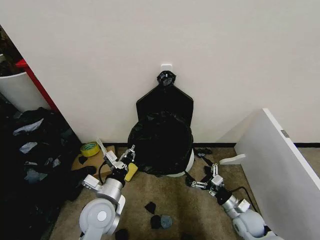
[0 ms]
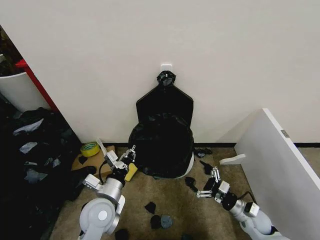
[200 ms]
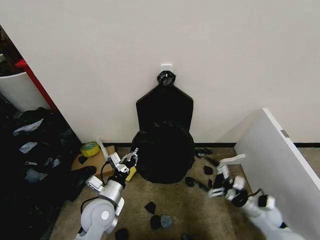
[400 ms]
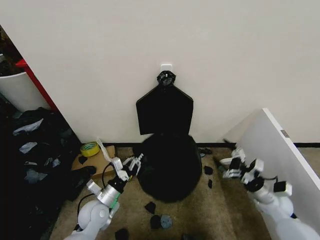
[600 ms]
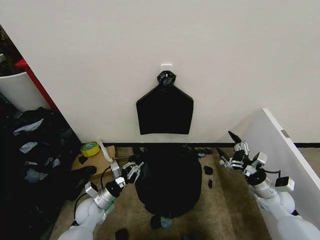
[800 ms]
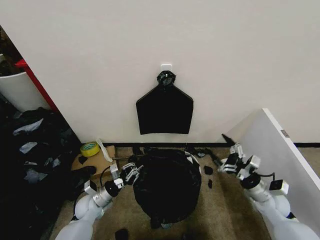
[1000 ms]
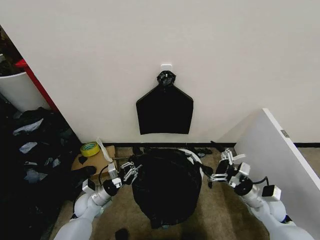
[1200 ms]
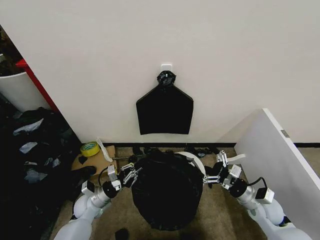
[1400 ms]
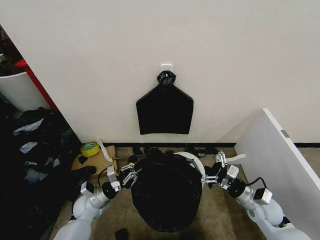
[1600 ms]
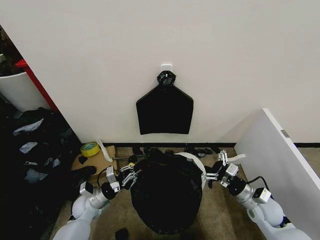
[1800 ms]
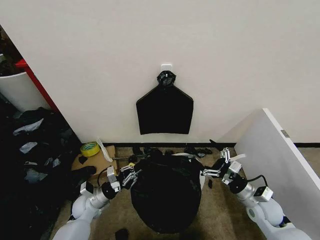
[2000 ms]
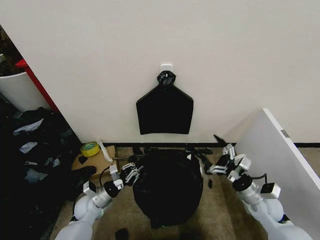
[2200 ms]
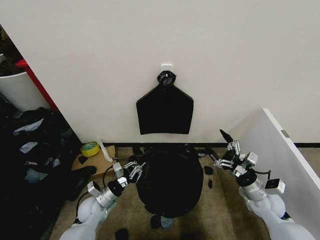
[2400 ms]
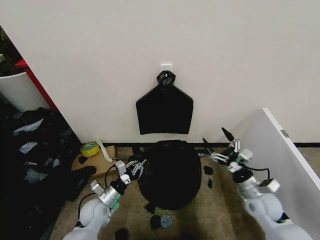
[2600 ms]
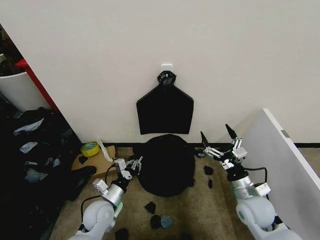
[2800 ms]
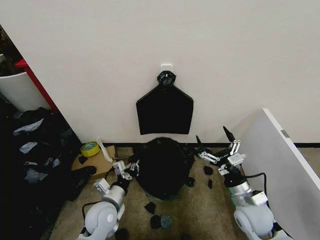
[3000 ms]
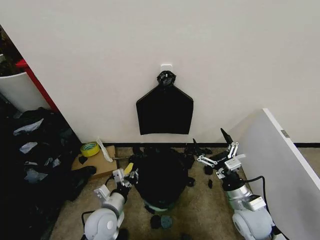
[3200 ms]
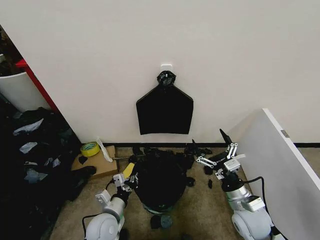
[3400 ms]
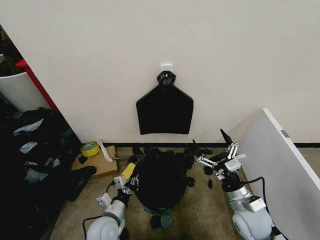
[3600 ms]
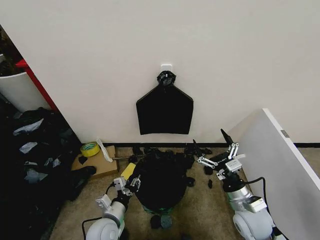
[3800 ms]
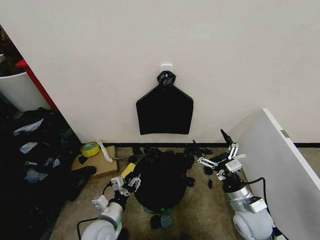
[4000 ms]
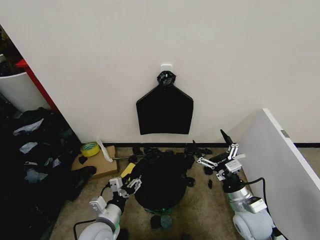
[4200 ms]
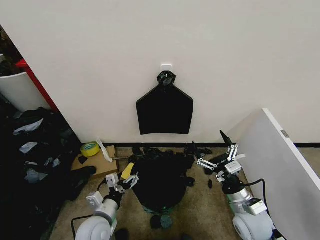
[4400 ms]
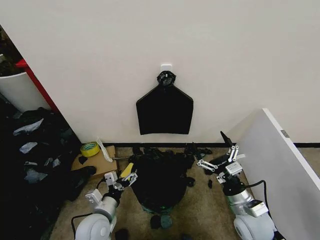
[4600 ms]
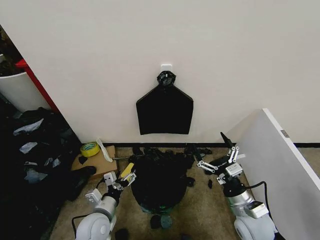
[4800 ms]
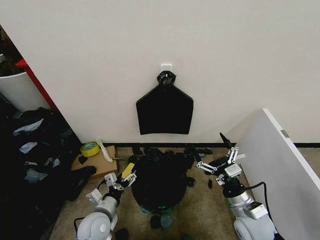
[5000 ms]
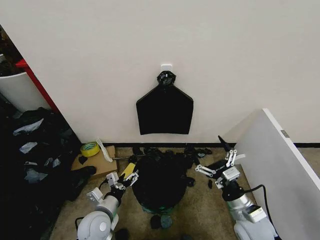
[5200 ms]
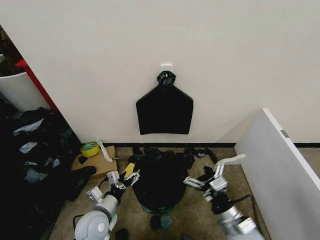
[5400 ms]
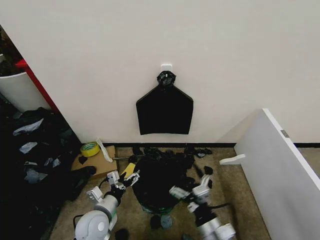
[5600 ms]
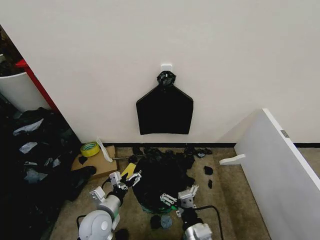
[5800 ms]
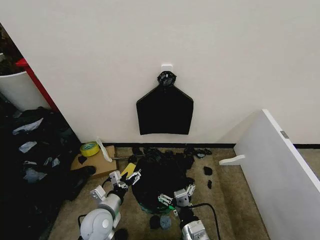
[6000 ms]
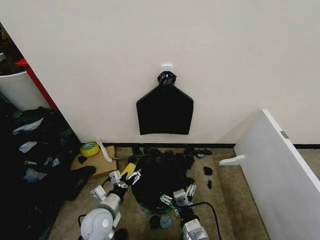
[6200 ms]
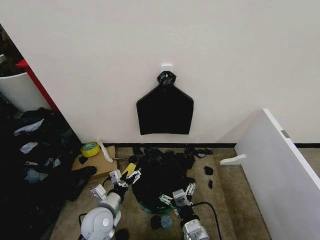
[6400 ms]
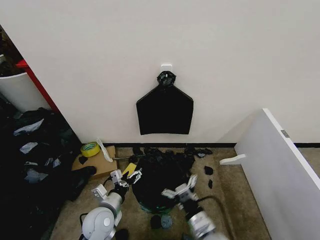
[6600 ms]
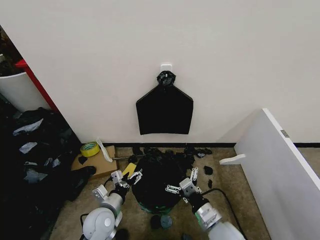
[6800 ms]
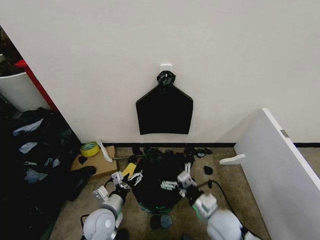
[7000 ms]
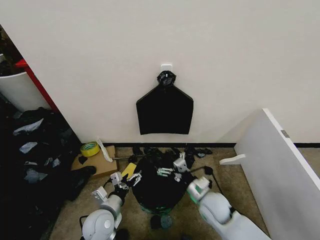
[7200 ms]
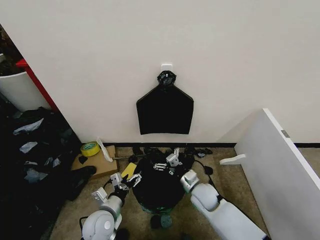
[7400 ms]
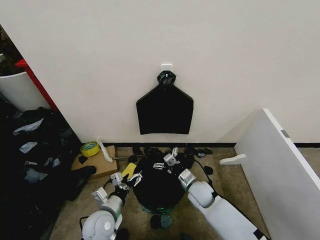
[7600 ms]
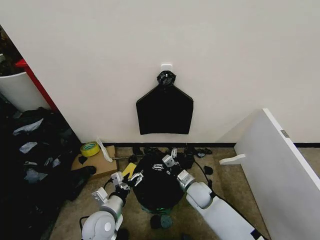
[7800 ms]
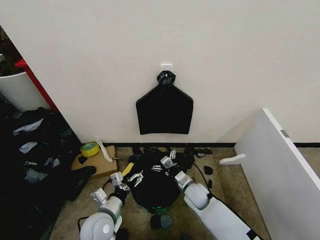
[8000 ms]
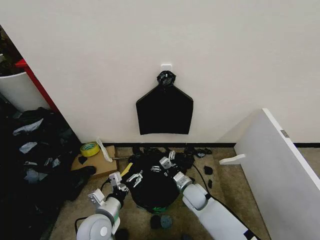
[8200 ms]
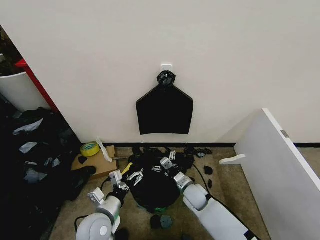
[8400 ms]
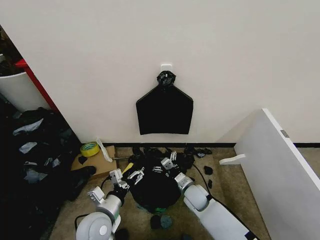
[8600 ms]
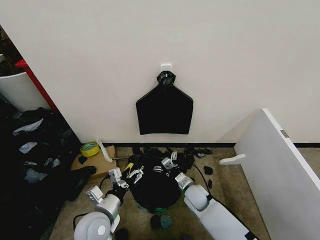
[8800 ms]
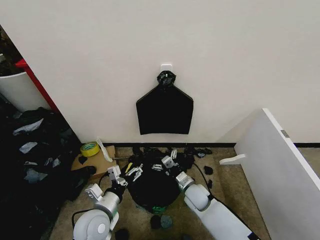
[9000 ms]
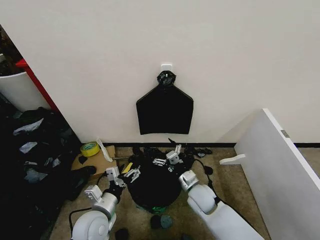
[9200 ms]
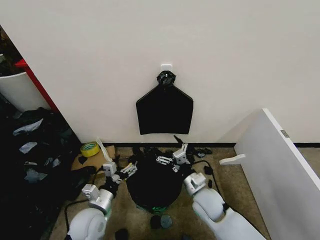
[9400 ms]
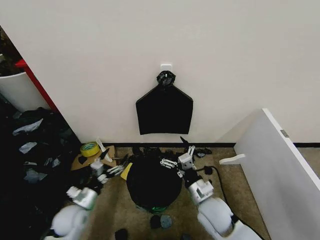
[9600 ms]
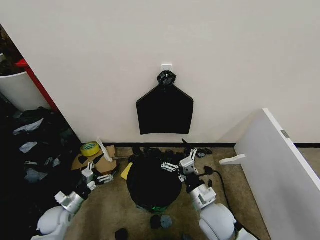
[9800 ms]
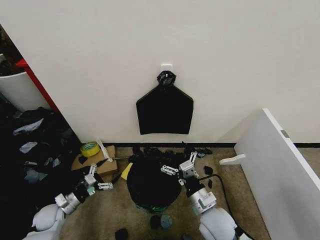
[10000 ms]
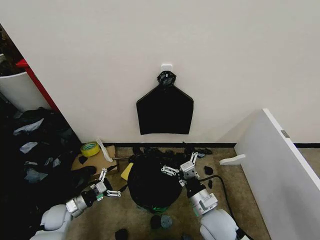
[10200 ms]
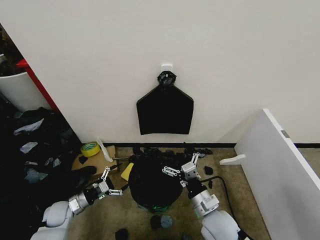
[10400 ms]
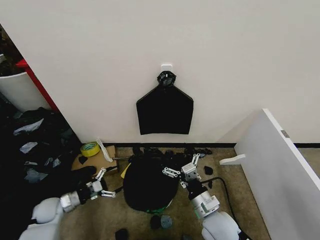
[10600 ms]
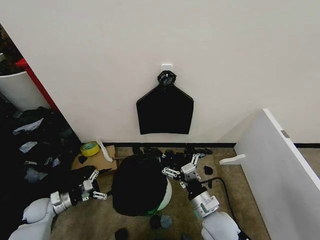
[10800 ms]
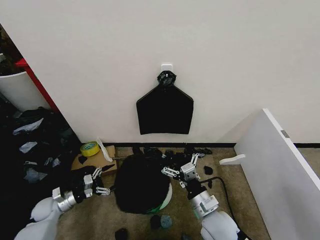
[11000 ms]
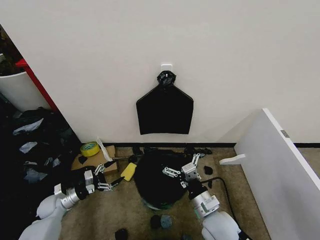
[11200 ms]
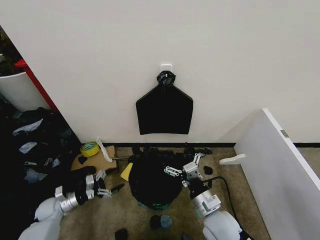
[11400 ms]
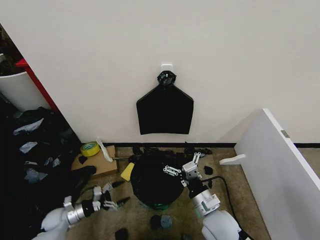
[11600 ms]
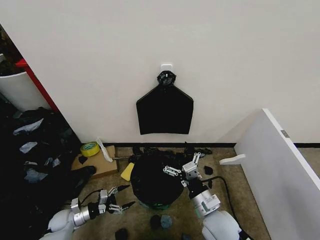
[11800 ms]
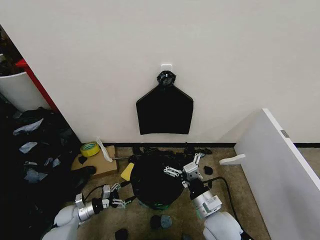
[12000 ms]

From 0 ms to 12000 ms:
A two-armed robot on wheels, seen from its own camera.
Task of the whole recording: Place the garbage bag over the trash bin.
From 0 ms to 1600 ms: The left gripper heads downward, to the left and forward, covering about 20 cm. Meanwhile the right gripper heads upward, covering roughly 10 cm.
From 1600 ms to 3000 ms: The left gripper shifts some 15 cm to the right, upward and backward; the right gripper moves to the left, some 5 cm.
From 3000 ms to 4400 ms: The left gripper opens its fingers.
From 4400 ms to 6000 ms: The right gripper goes approximately 20 cm to the left and backward.
From 6000 ms to 7600 ms: The right gripper goes some 20 cm forward.
From 7600 ms to 9000 ms: The left gripper is displaced upward by some 5 cm.
From 9000 ms to 10400 ms: The left gripper travels to the left and downward by roughly 20 cm; the right gripper travels backward and upward by about 15 cm.
From 10400 ms to 12000 ms: The left gripper travels downward by about 5 cm.

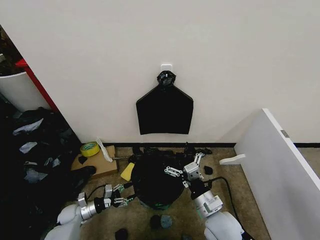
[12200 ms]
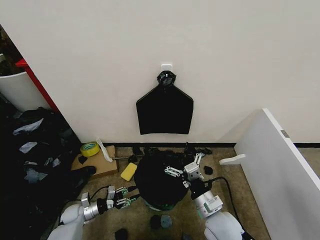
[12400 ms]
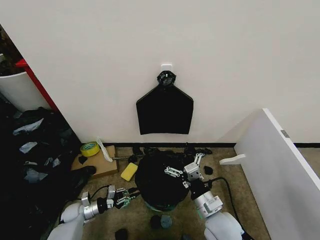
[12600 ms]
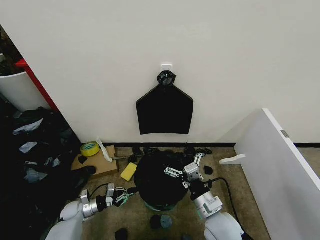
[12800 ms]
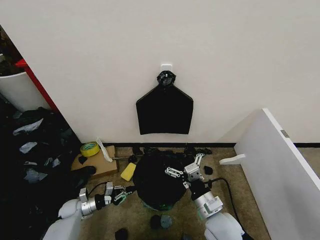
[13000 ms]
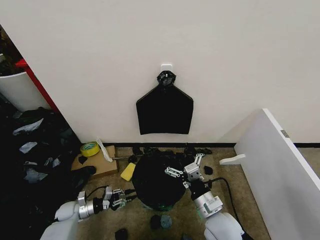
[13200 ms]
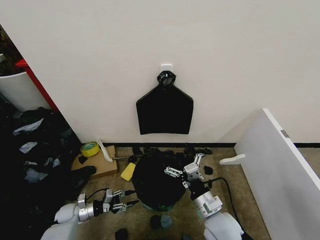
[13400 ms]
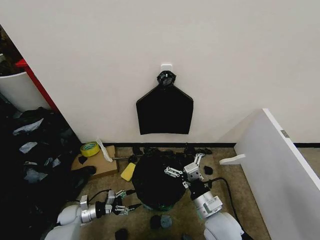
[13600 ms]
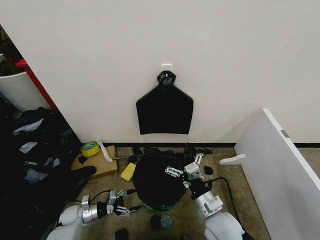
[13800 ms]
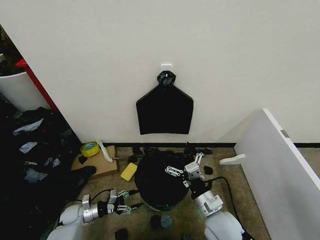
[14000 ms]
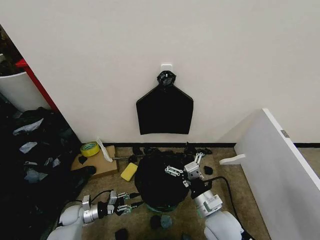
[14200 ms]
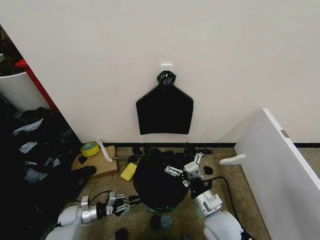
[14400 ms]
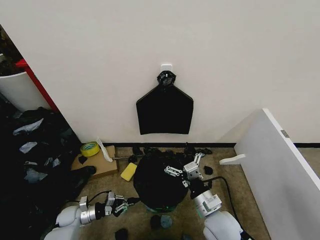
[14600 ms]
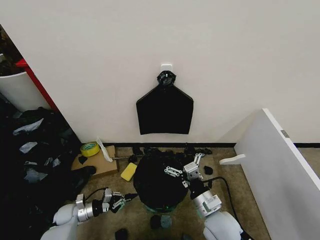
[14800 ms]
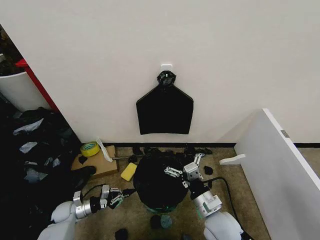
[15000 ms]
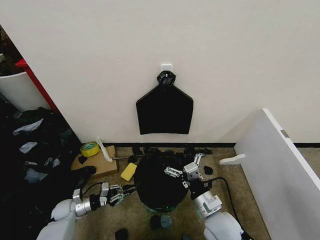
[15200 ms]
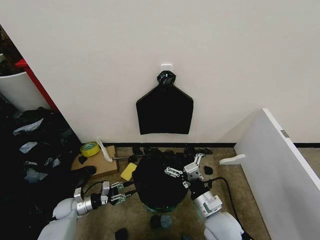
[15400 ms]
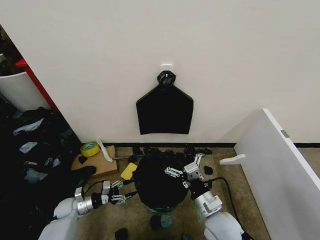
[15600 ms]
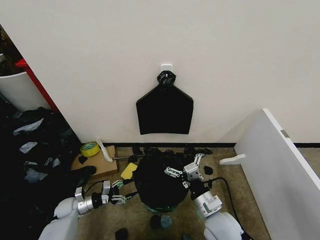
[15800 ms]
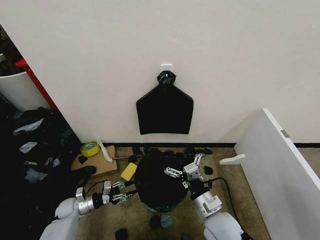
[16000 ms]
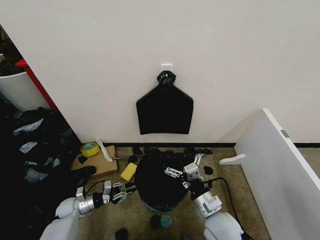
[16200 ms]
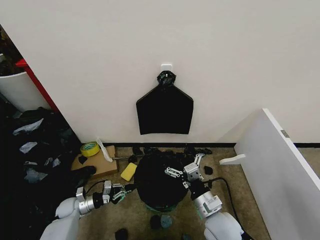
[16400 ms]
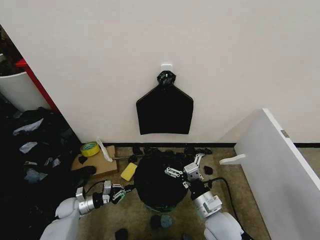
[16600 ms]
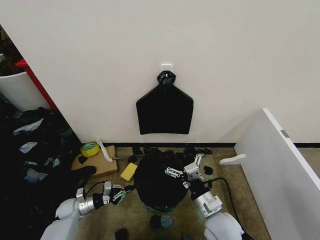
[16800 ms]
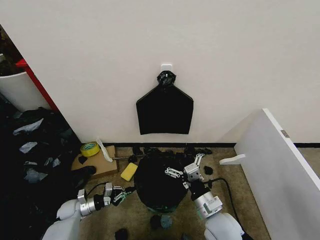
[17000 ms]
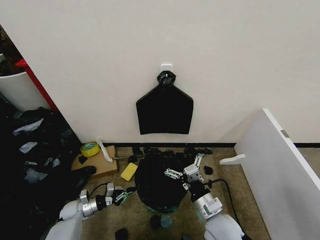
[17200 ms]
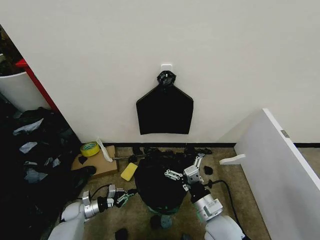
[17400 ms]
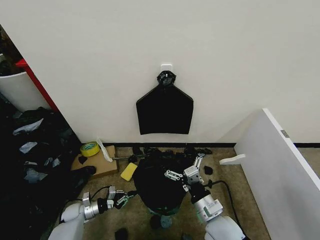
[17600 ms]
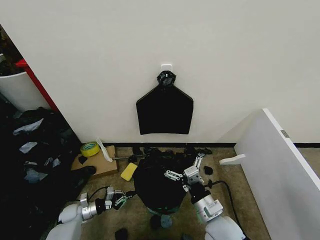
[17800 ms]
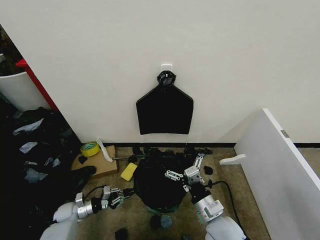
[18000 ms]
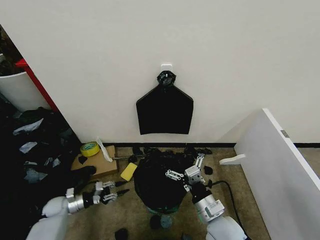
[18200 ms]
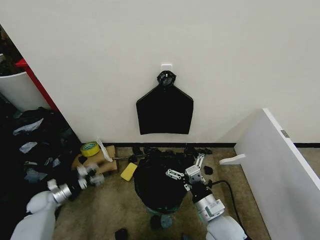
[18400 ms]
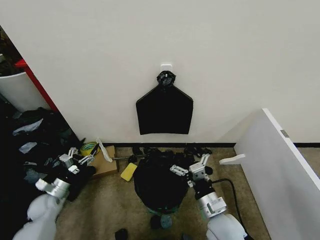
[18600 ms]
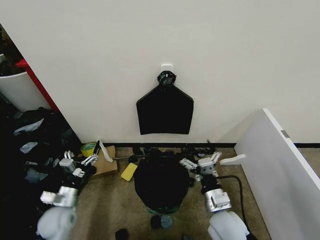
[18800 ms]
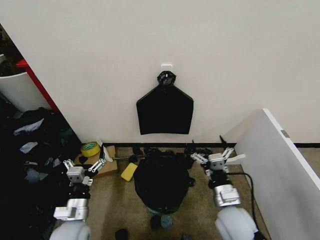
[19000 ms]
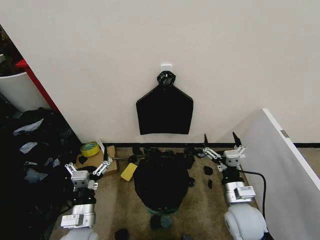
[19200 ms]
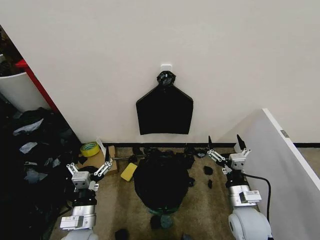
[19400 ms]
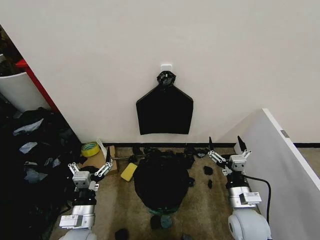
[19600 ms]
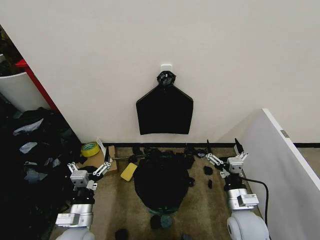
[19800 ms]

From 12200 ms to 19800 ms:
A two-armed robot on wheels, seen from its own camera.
Task of the whole recording: Place the garbage bag over the trash bin.
From 12200 ms to 13800 ms: The left gripper closes and opens again.
From 13800 ms to 15200 ms: The left gripper closes its fingers.
From 15200 ms to 16800 ms: The left gripper opens and closes again.
From 16800 ms to 18200 ms: The left gripper opens.
From 18200 ms to 19800 ms: The right gripper moves to the right, about 5 cm; the left gripper shifts about 30 cm to the right, upward and backward, and opens.

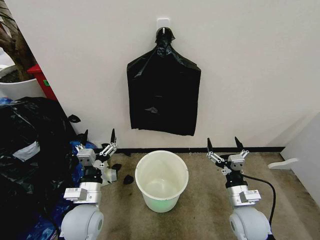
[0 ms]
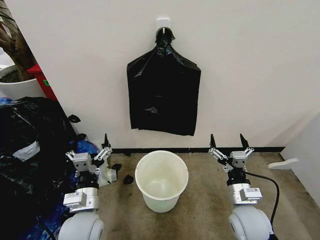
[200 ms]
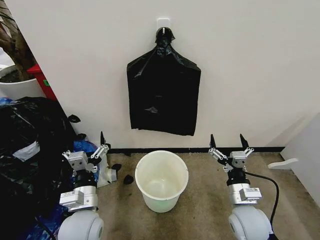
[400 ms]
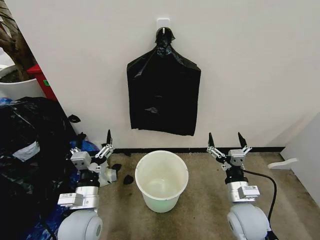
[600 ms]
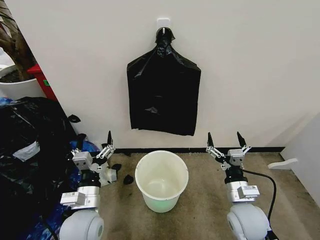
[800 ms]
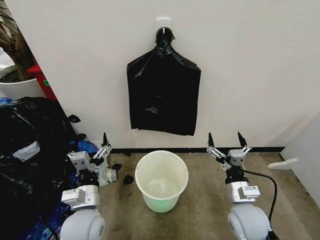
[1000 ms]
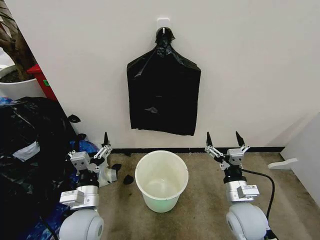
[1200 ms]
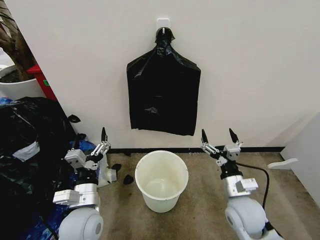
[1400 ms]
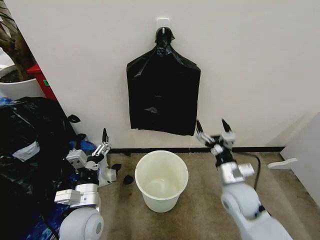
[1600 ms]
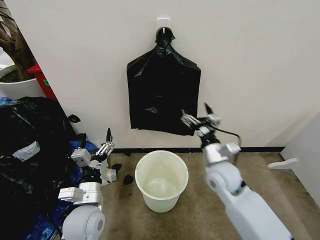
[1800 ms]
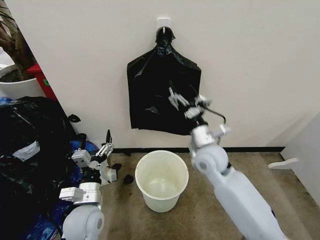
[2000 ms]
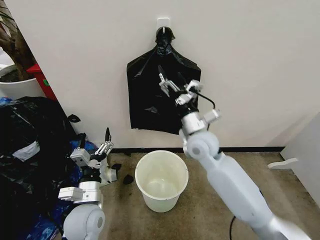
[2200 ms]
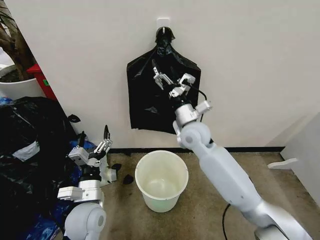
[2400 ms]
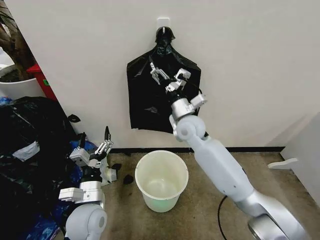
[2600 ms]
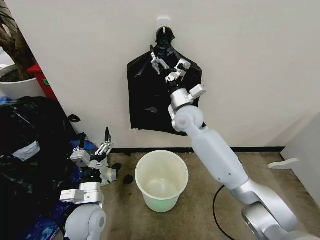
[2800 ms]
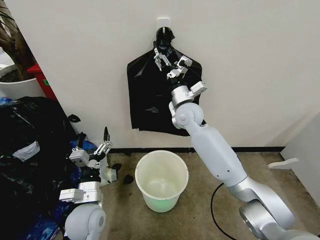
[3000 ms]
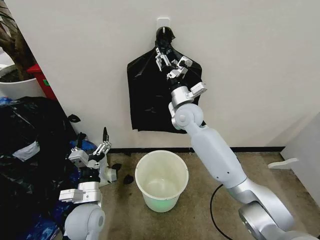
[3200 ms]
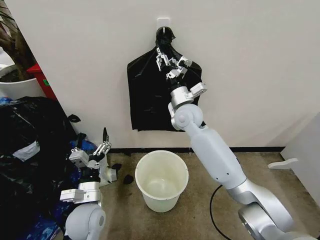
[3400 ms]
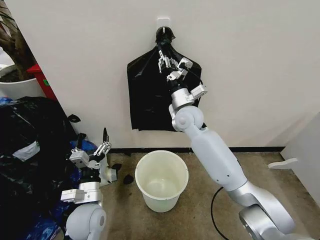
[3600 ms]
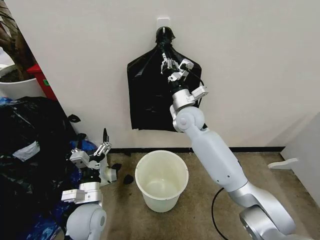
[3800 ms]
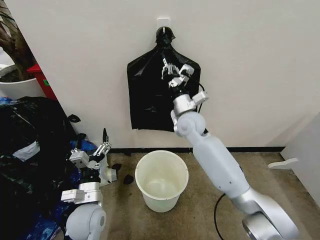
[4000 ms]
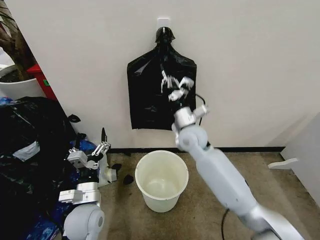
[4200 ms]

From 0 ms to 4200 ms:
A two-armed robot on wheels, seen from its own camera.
Task of the whole recording: Place the garbage bag over the trash bin.
From 1400 ms to 2800 ms: The right gripper heads forward, upward and to the left, covering some 35 cm.
From 2800 ms to 4200 ms: The right gripper shifts about 5 cm backward, and closes its fingers.
